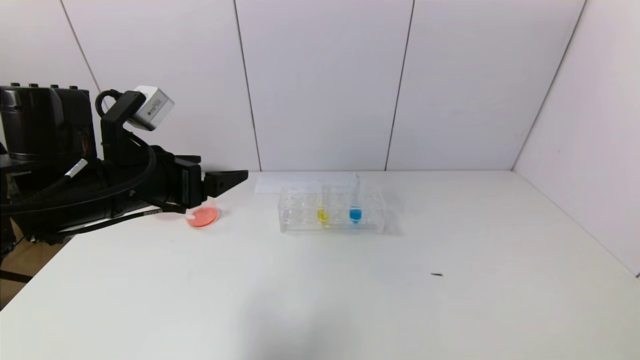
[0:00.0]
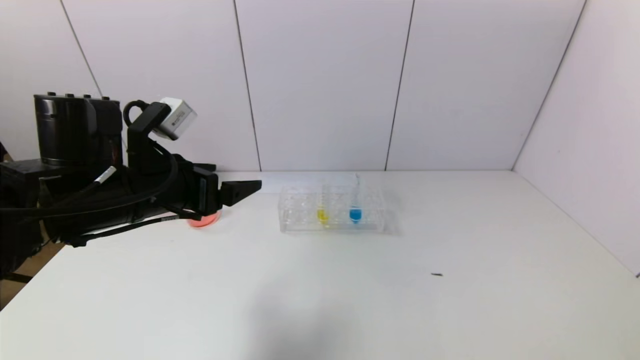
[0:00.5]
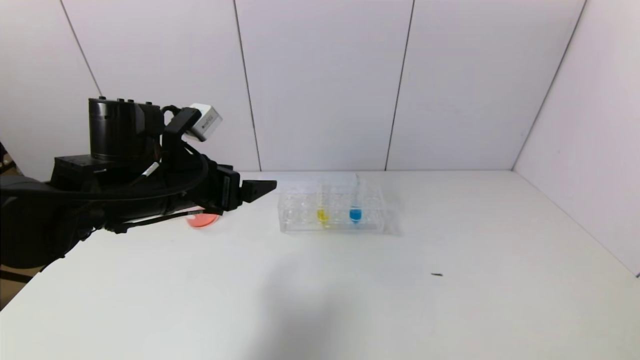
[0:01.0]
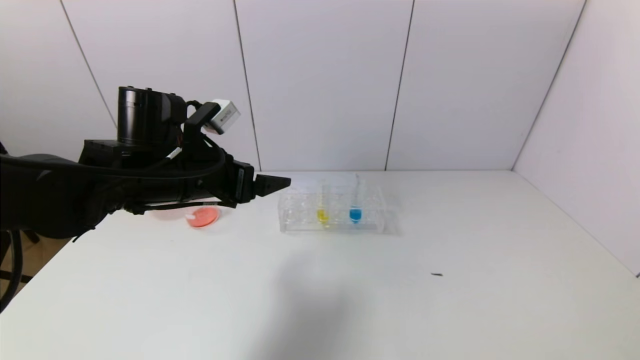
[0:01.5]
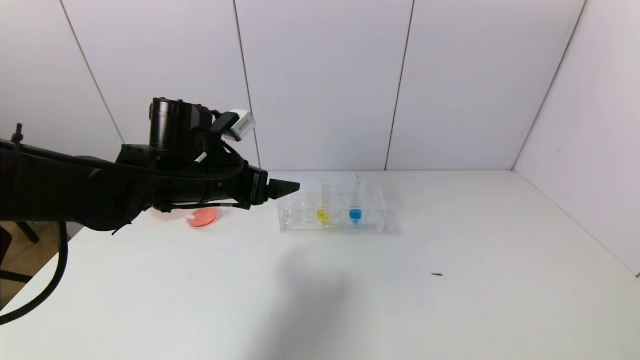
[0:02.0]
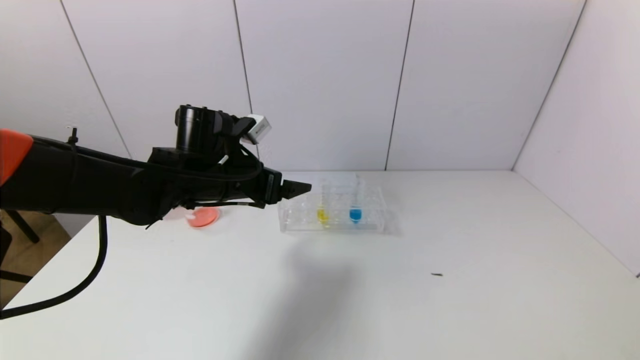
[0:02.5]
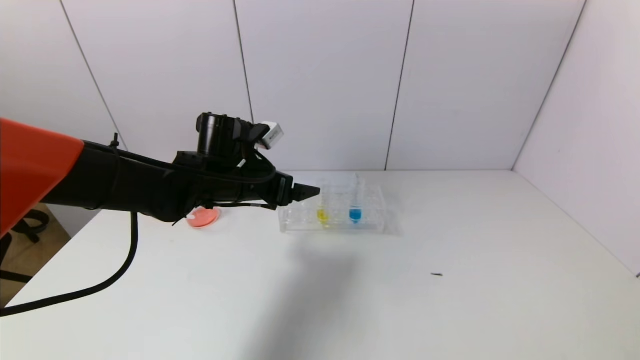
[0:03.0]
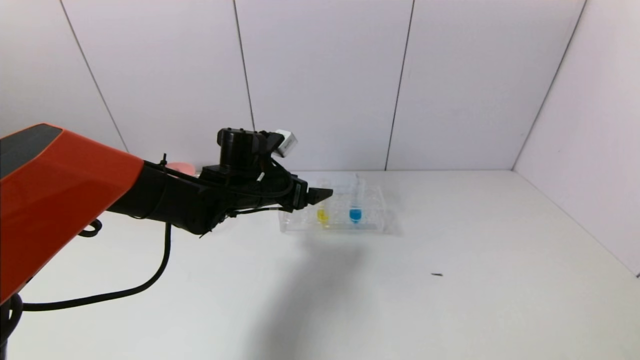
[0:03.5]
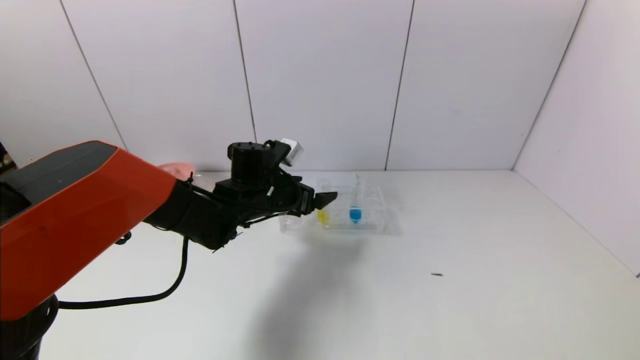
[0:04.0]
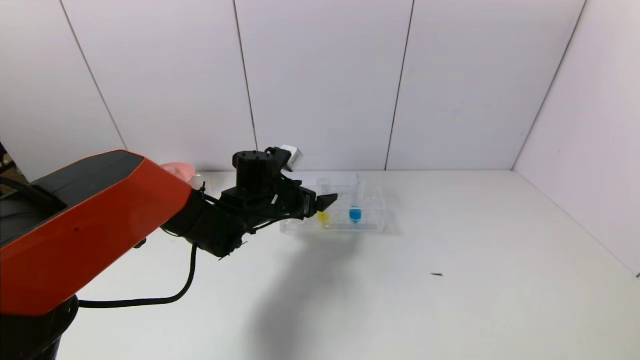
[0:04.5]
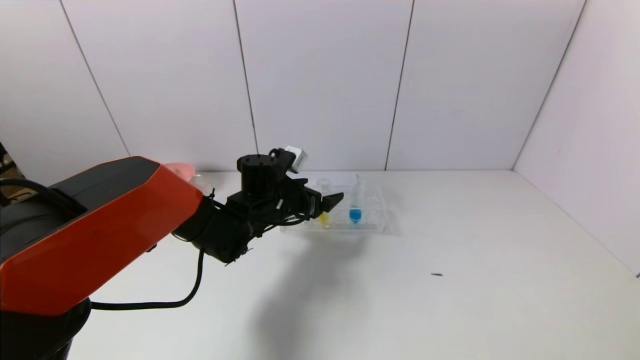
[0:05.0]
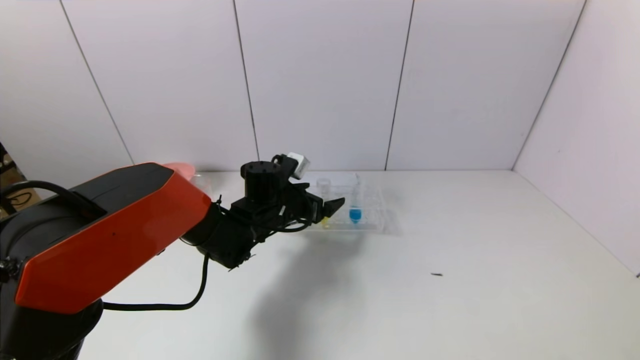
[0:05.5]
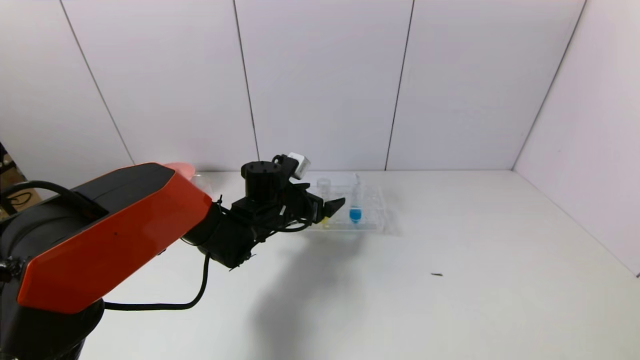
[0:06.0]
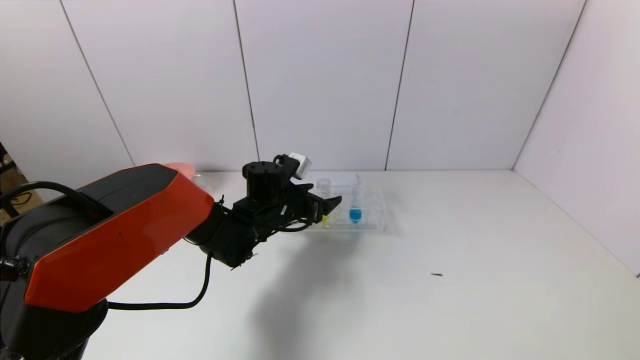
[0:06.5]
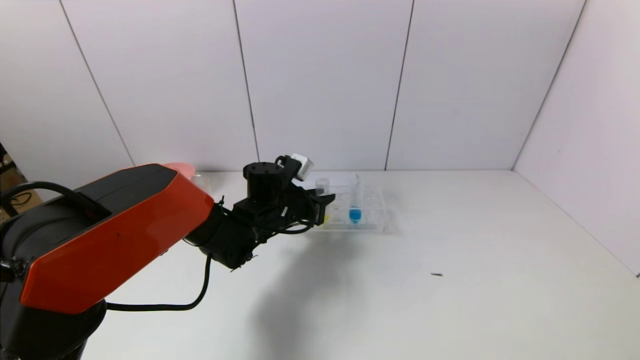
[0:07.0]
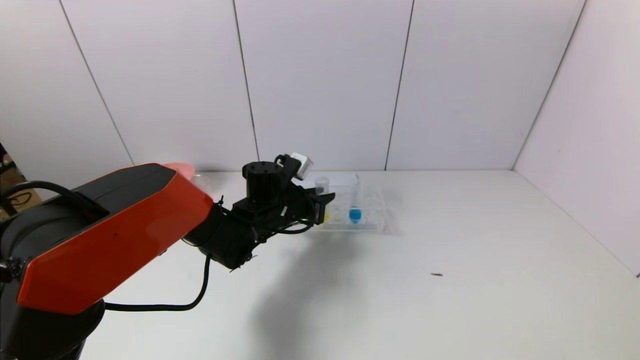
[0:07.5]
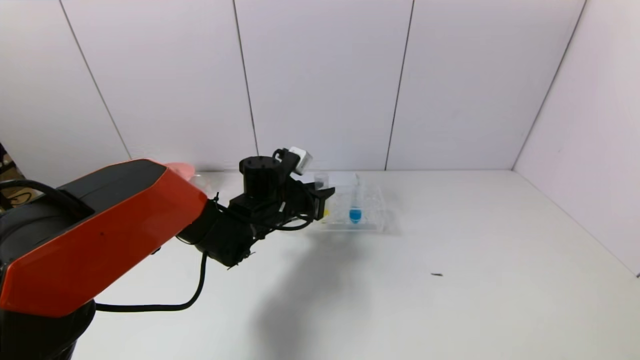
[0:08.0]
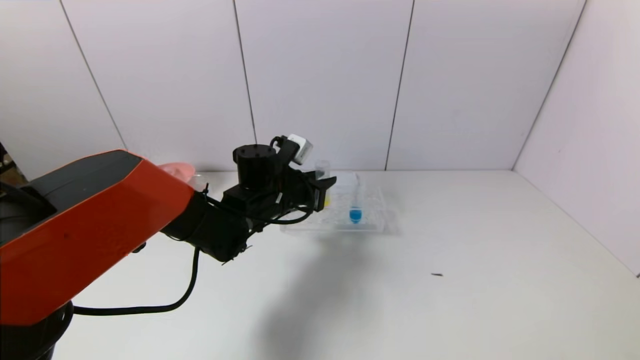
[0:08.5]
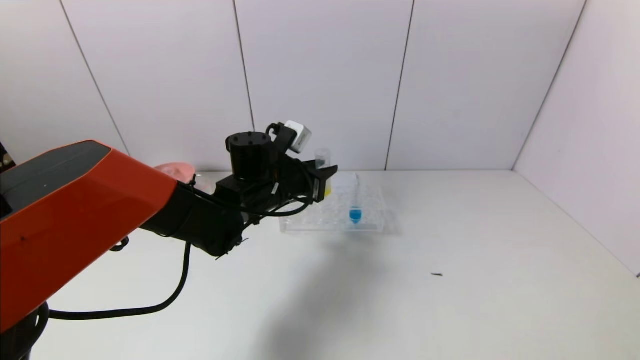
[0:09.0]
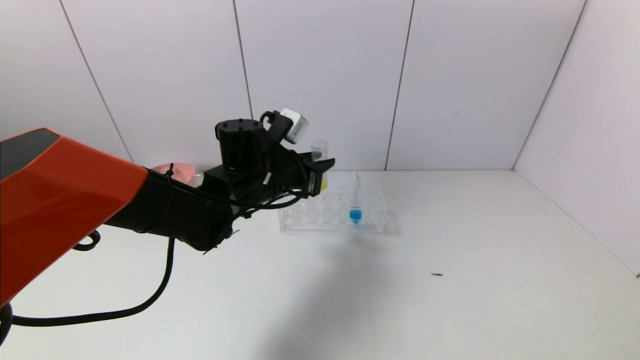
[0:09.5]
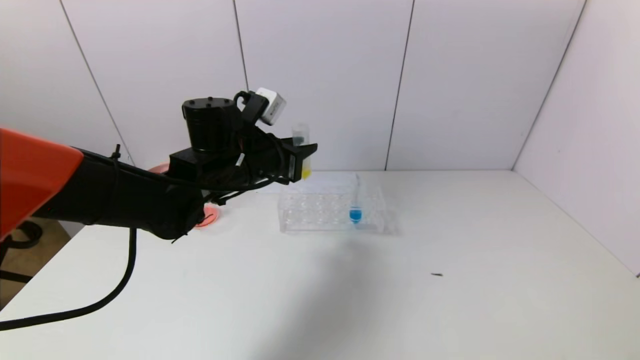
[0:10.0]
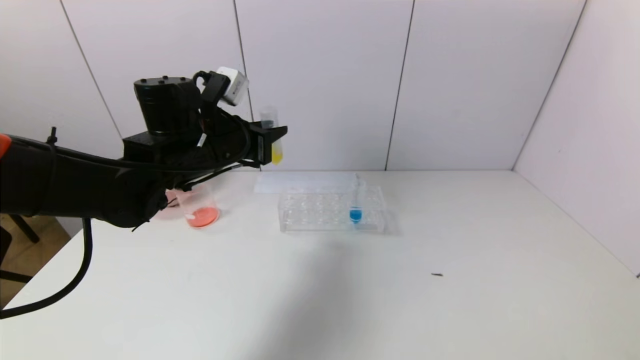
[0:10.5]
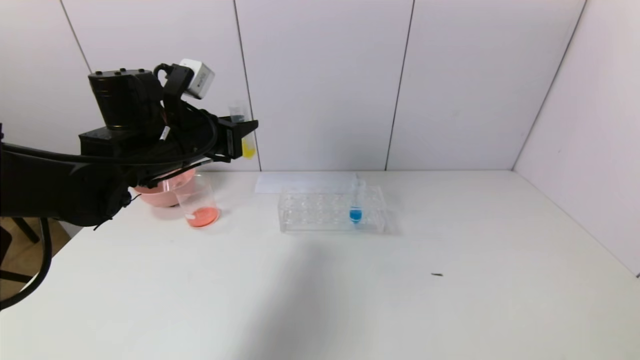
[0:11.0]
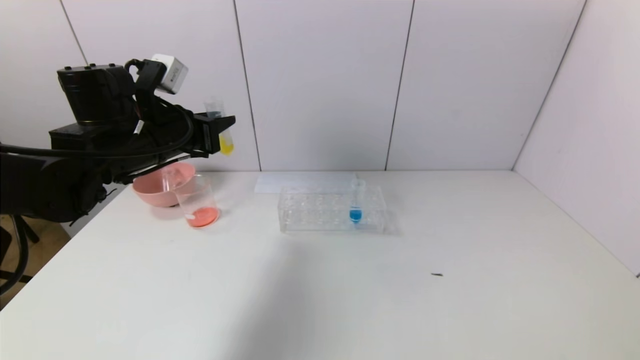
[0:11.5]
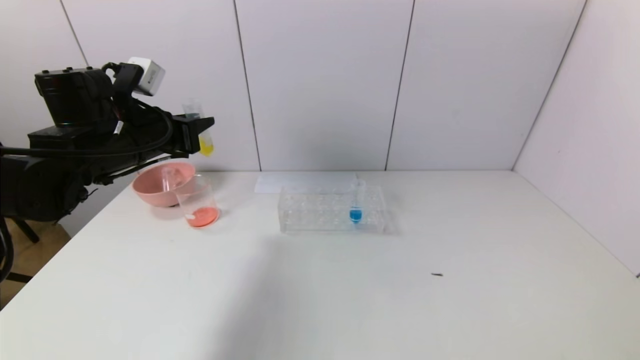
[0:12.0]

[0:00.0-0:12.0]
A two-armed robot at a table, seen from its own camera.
Task of the whole recording: pick up the test tube with yellow pigment and the test tube with red pigment by grippers and pour them into the beaker.
Step, 0:00.0 to 0:07.0: Grasp the yellow reagent with the left gripper.
0:00.0 to 0:02.0: The left gripper shifts roughly 10 cm forward and to the right.
0:02.0 to 0:04.0: The left gripper shifts approximately 10 cm downward, forward and to the right.
0:04.0 to 0:06.0: The grippers stay close to where they were, moving slightly.
0:06.0 to 0:08.0: The left gripper closes up.
0:08.0 to 0:10.0: The left gripper shifts about 10 cm upward.
0:10.0 to 0:12.0: The left gripper is displaced to the left by approximately 15 cm.

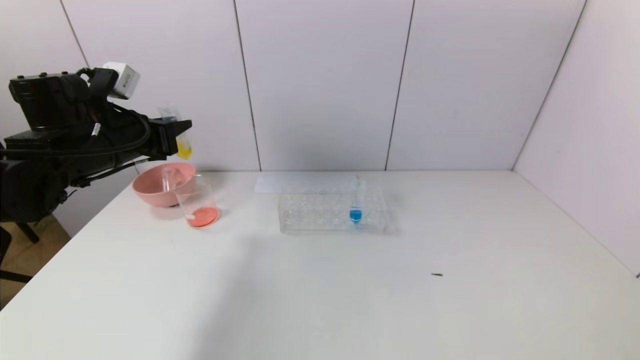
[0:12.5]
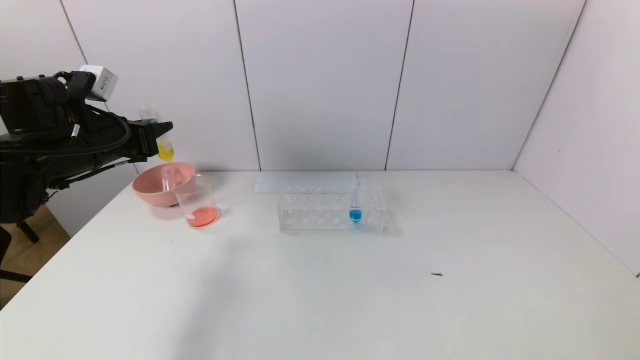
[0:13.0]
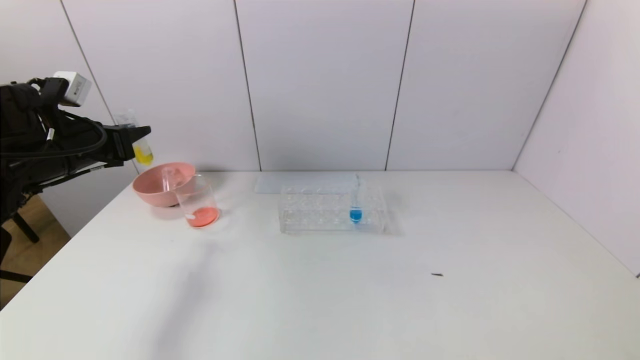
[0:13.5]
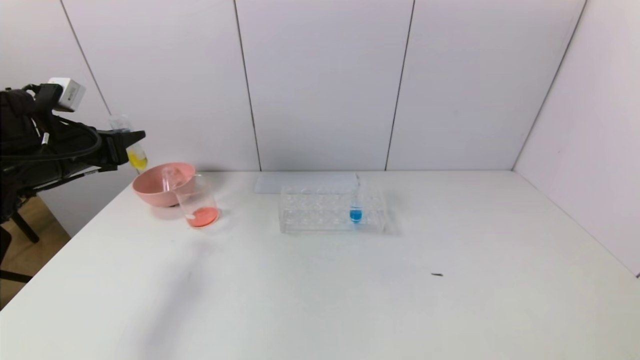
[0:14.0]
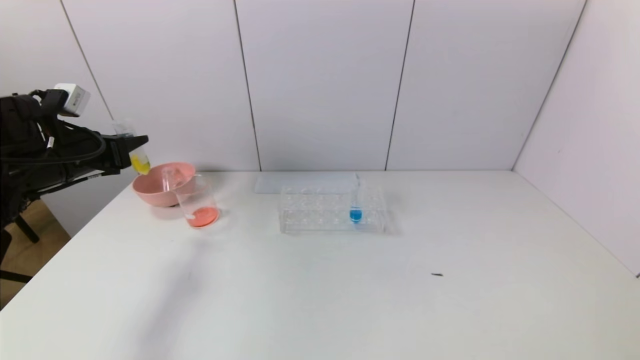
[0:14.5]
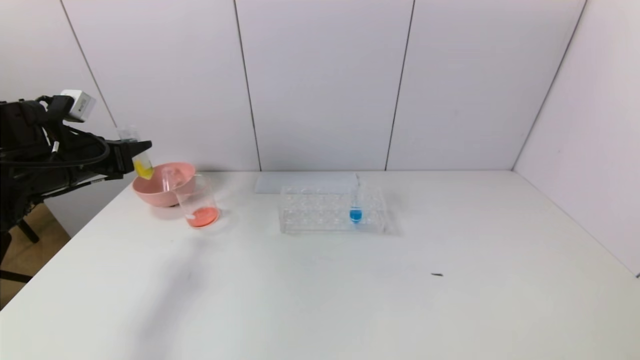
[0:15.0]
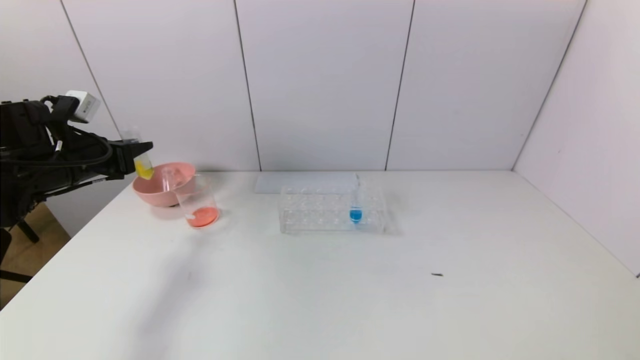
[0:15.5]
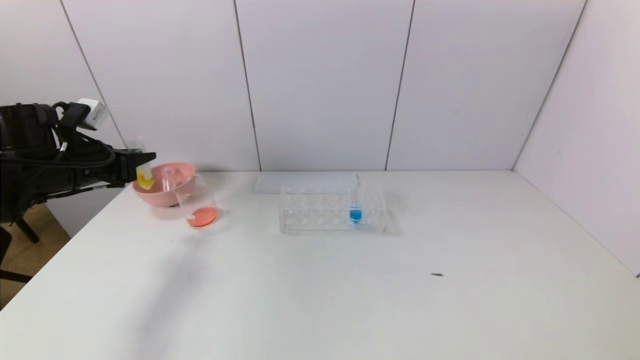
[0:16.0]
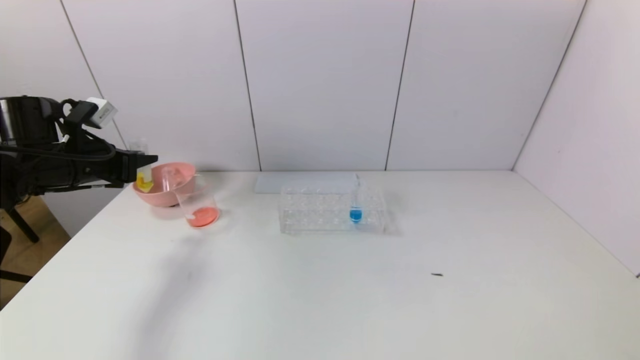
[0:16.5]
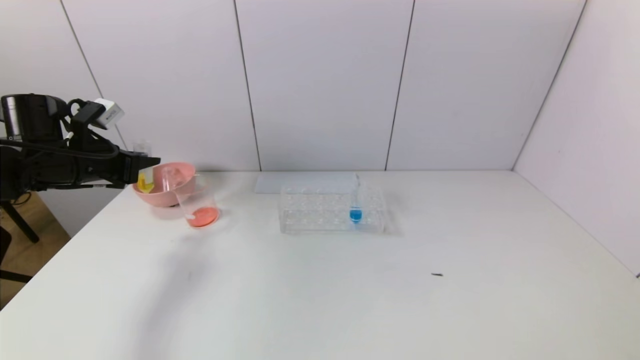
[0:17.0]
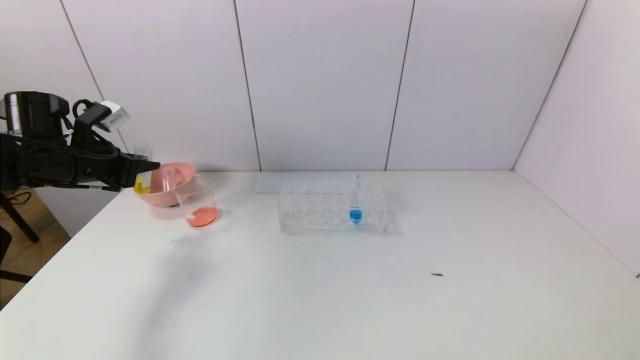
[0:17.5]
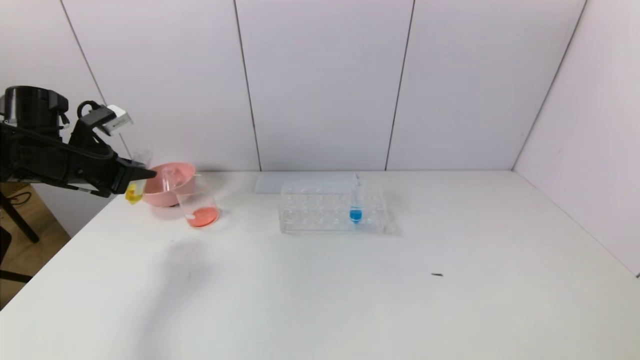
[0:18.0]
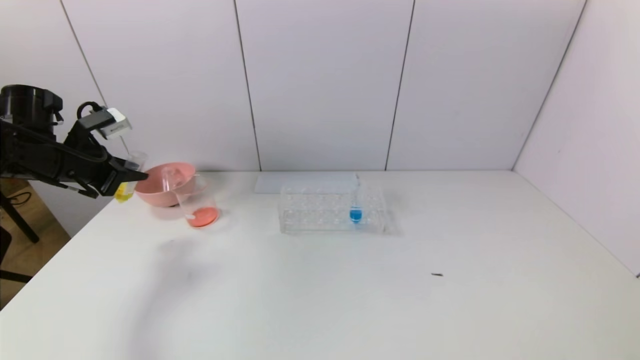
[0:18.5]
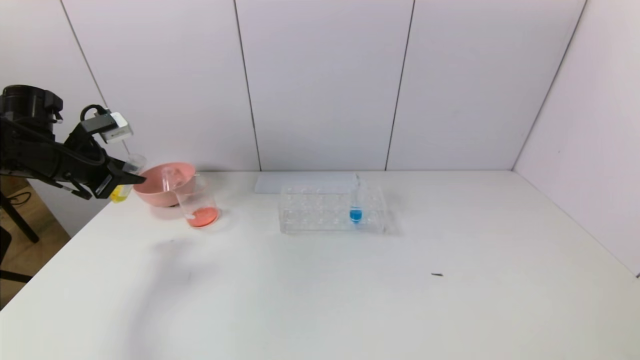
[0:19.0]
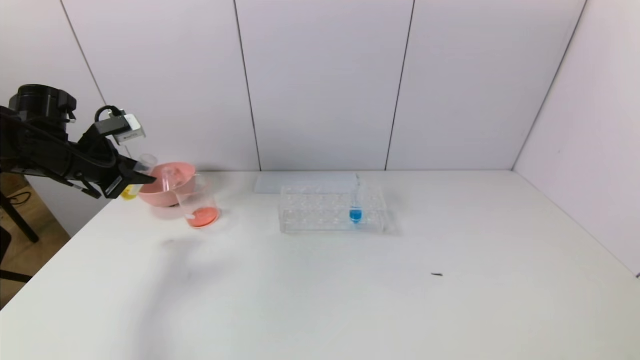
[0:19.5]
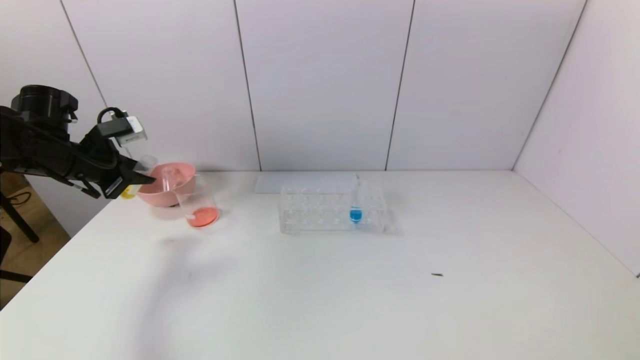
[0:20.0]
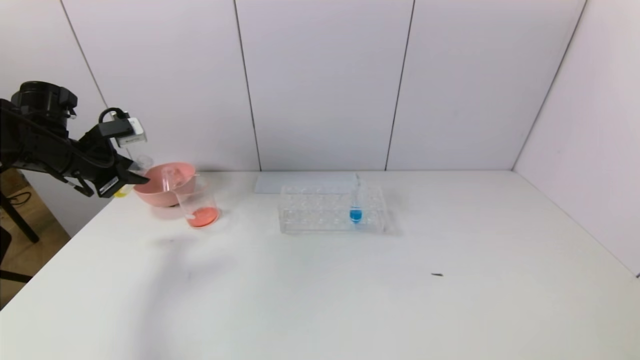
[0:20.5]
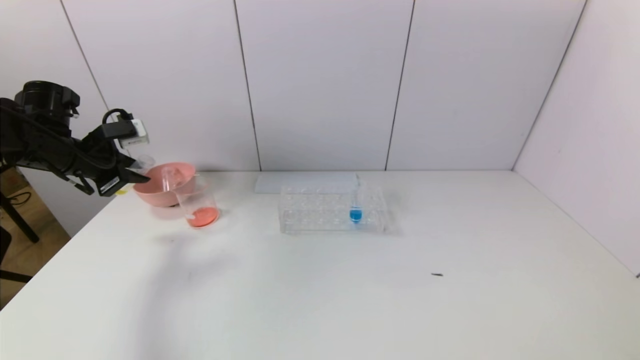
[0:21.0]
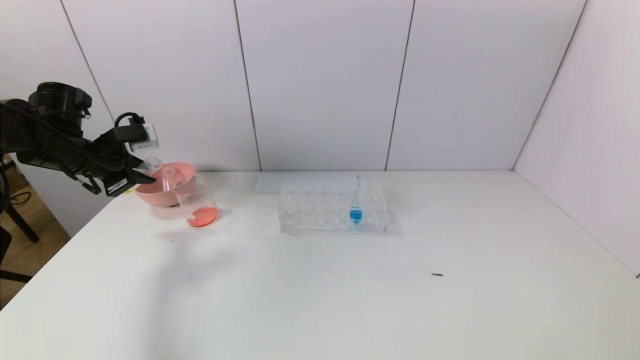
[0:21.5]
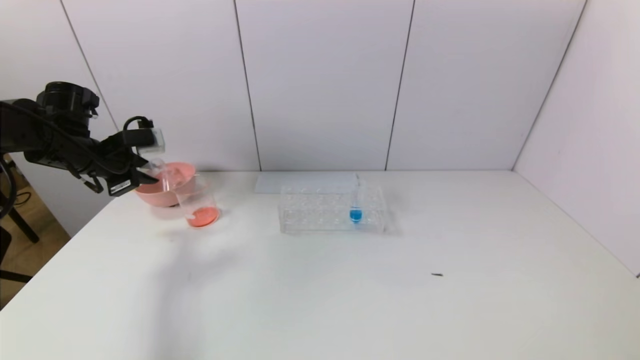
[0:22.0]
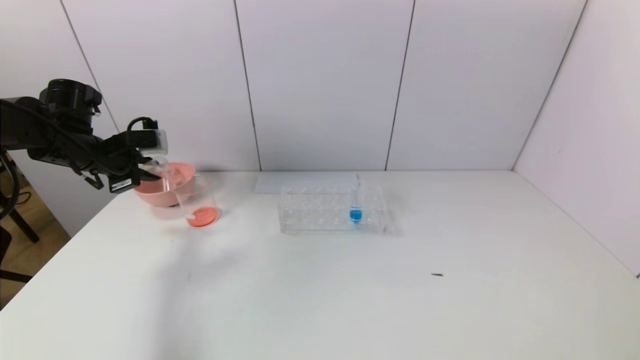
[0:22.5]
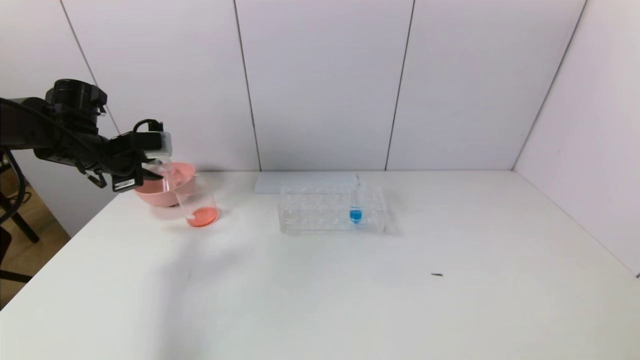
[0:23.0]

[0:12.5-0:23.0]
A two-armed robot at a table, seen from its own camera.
Task of the whole recording: pick up the test tube with yellow pigment and the test tube with red pigment by grippers and pour them into the beaker.
0:12.5 to 0:14.5: The left gripper is displaced to the left by about 10 cm.
0:14.5 to 0:16.5: The grippers move only a little.
0:19.0 to 0:21.0: The grippers move only a little.
0:21.0 to 0:23.0: There are only small adjustments of the grippers.
